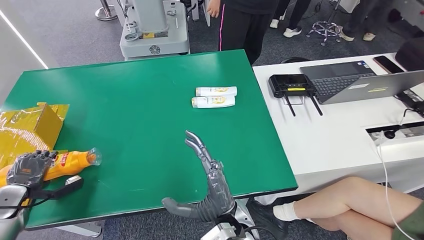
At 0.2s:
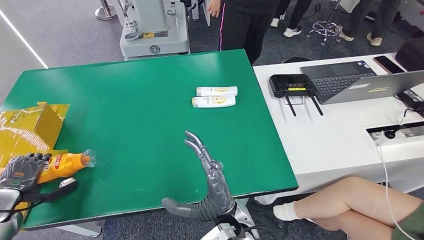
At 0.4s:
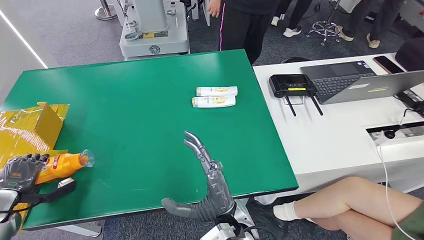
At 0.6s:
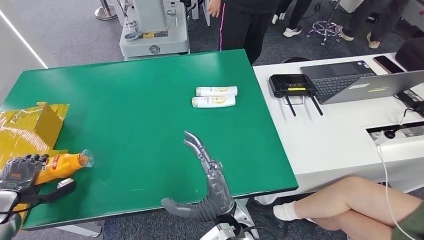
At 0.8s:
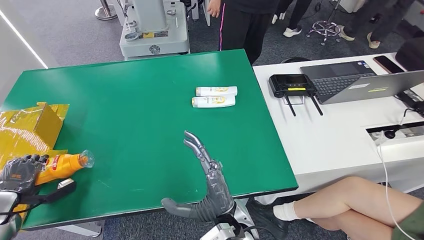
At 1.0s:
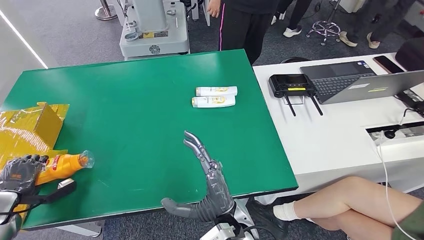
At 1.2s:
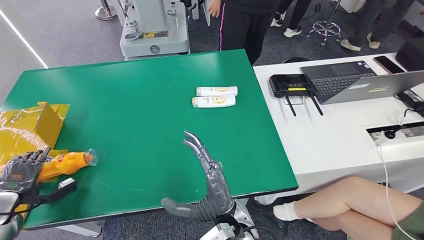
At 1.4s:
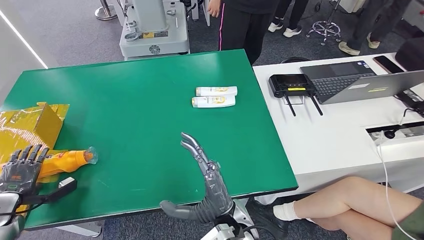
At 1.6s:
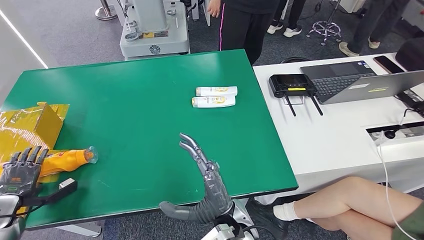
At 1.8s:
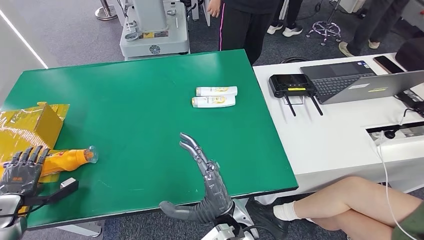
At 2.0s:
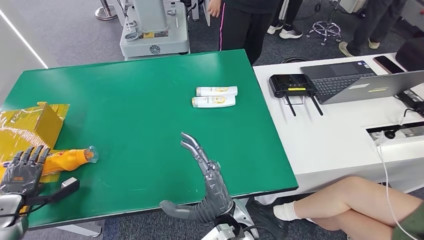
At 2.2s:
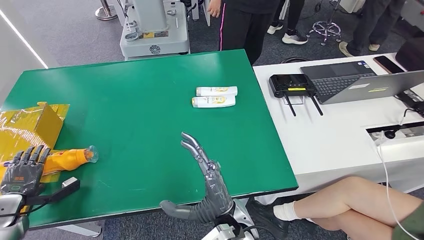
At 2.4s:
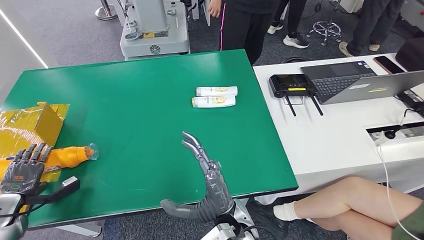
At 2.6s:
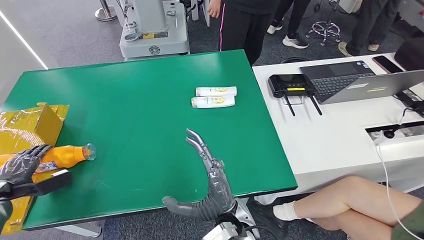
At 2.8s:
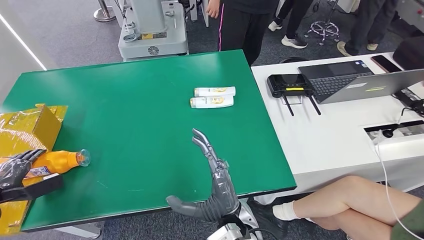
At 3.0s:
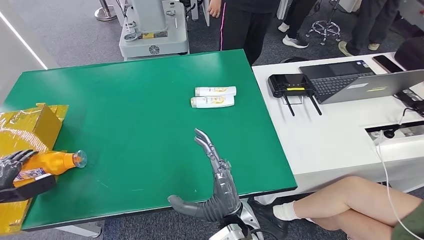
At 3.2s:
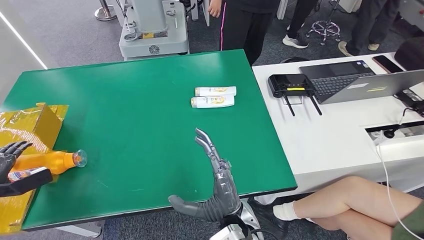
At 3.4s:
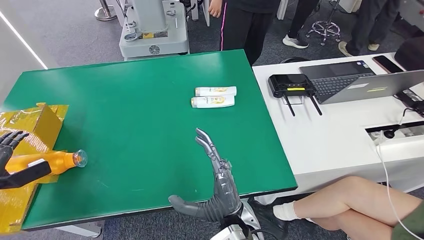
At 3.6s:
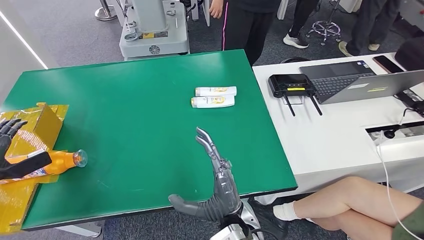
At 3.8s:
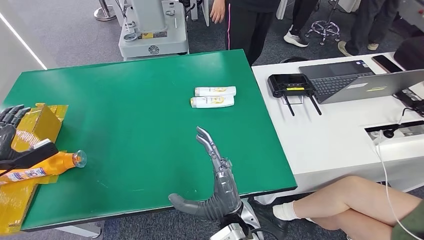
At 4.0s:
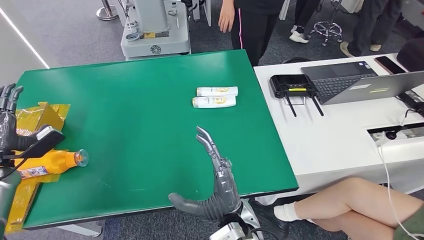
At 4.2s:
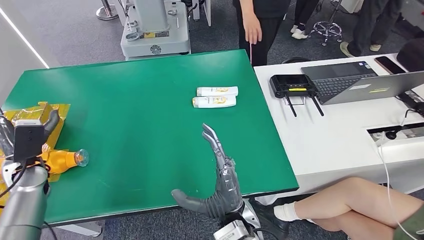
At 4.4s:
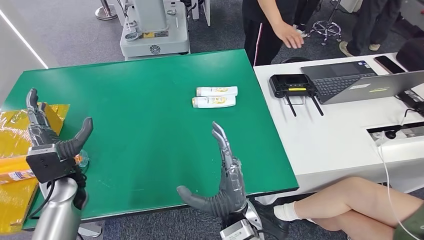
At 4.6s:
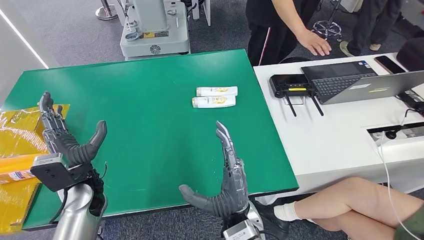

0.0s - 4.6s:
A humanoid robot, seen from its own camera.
Step, 0.0s - 4.6s: Turn the bottle to the front side.
0.0s - 1.6s: The hands make only small movements.
1.6s - 3.0s: The left hand travels to the left by approximately 5 cm.
3.0s - 4.6s: The left hand goes approximately 35 cm to the right.
